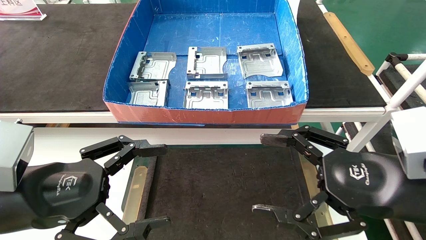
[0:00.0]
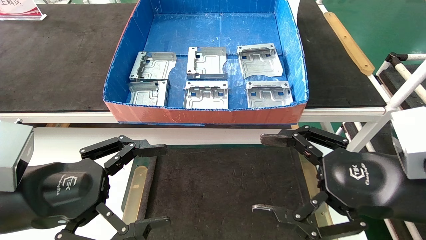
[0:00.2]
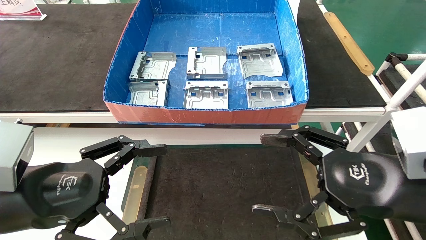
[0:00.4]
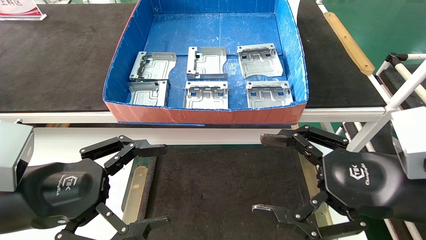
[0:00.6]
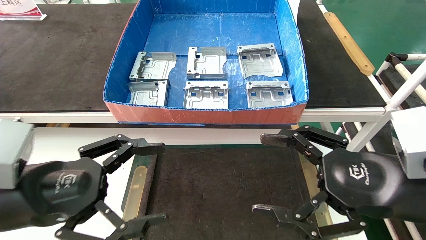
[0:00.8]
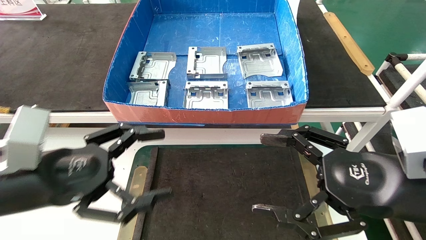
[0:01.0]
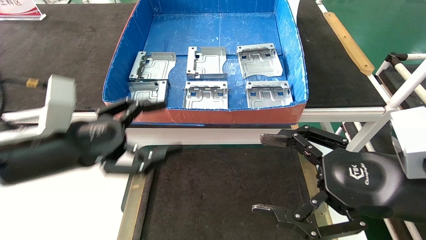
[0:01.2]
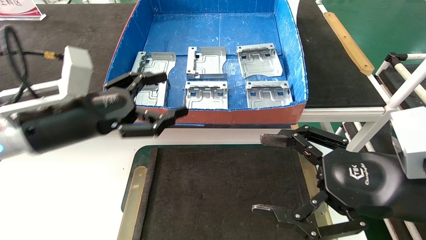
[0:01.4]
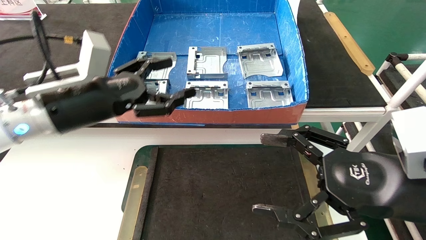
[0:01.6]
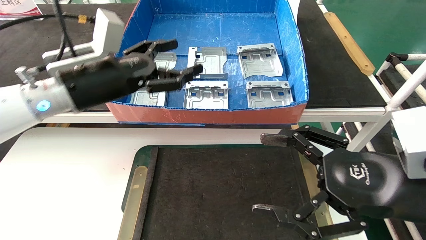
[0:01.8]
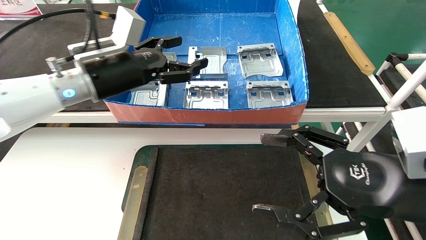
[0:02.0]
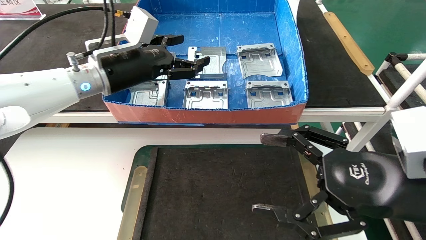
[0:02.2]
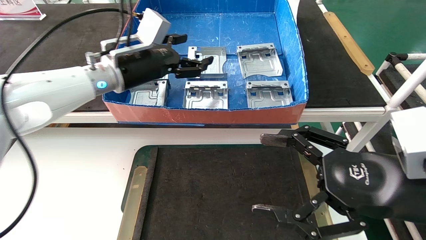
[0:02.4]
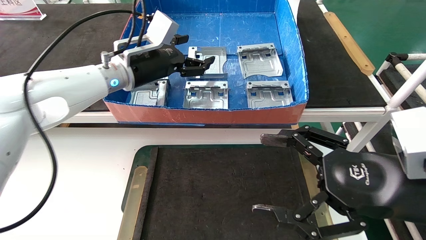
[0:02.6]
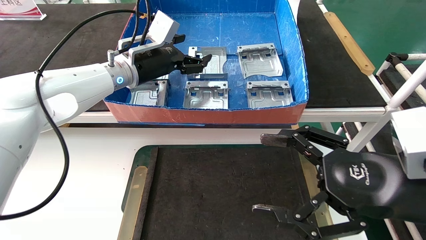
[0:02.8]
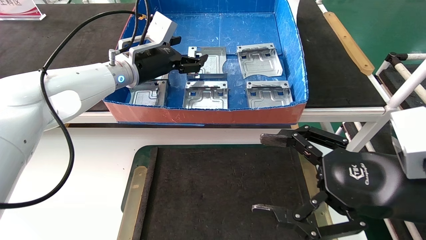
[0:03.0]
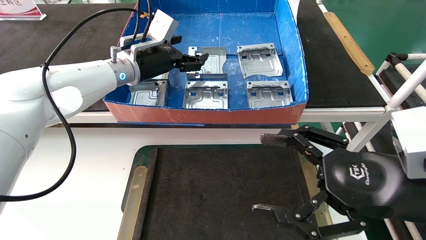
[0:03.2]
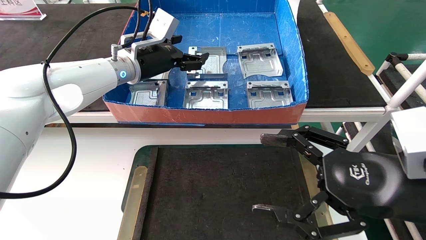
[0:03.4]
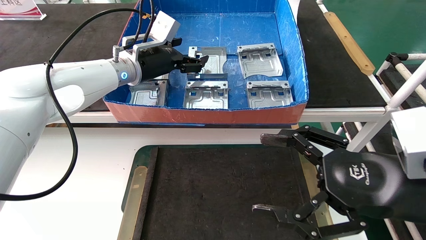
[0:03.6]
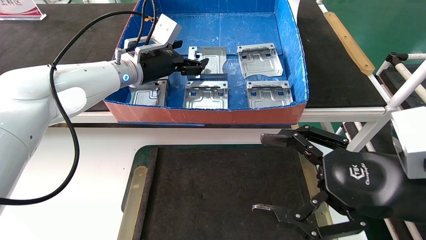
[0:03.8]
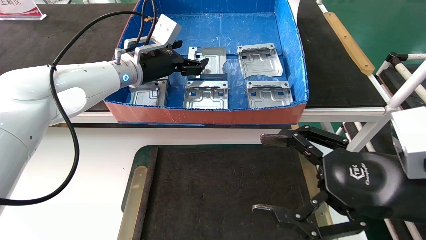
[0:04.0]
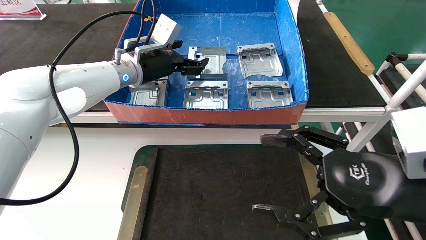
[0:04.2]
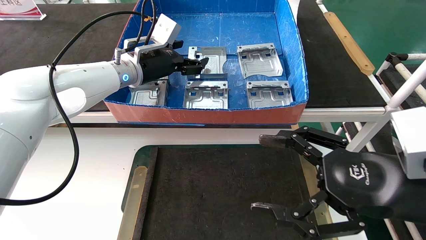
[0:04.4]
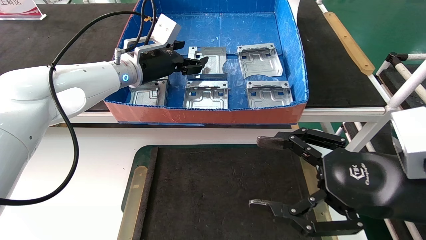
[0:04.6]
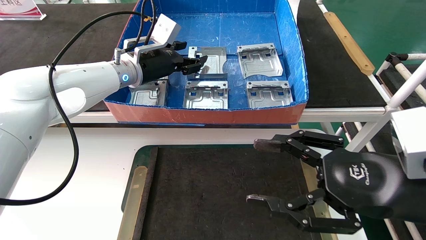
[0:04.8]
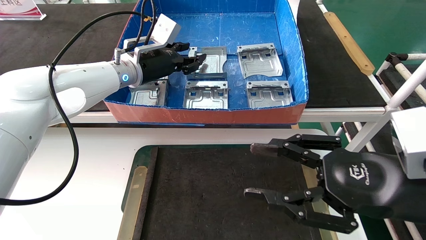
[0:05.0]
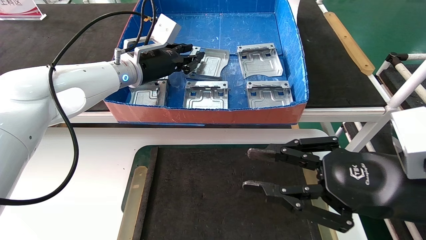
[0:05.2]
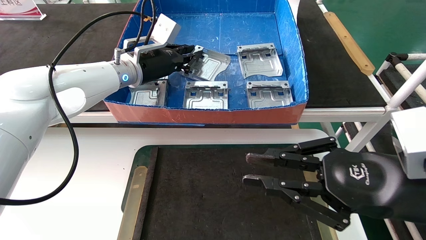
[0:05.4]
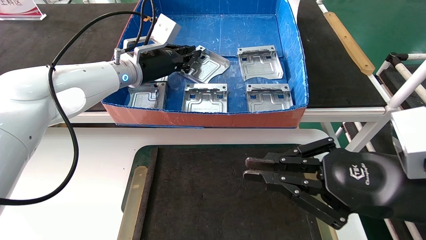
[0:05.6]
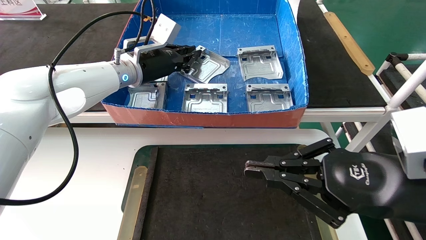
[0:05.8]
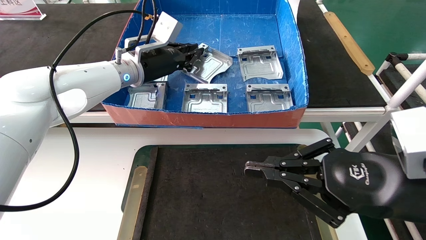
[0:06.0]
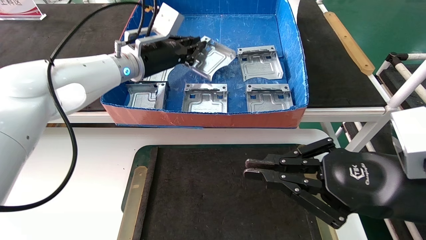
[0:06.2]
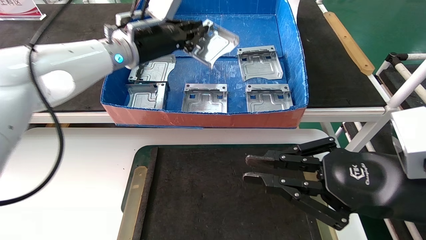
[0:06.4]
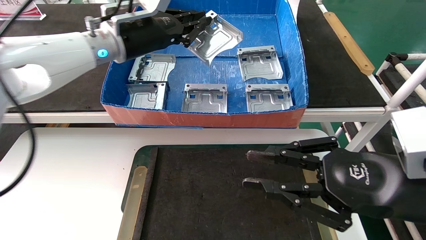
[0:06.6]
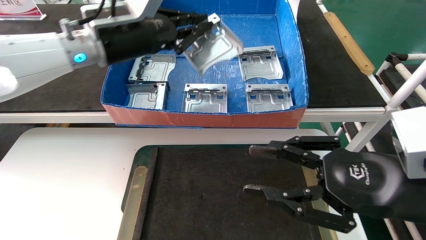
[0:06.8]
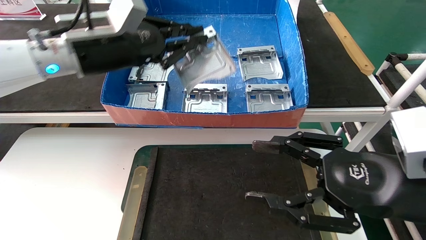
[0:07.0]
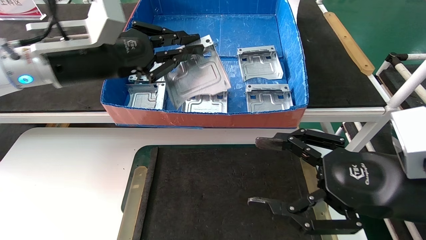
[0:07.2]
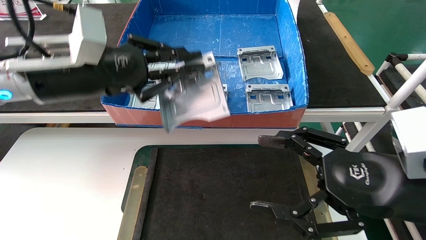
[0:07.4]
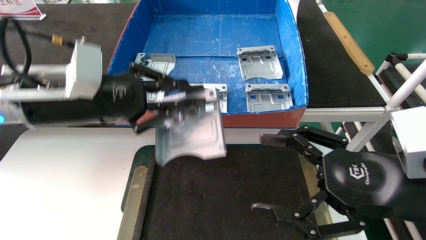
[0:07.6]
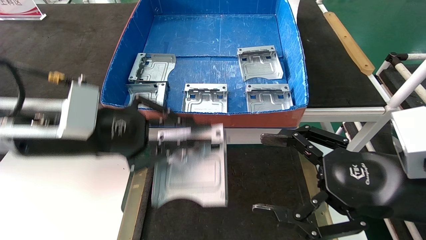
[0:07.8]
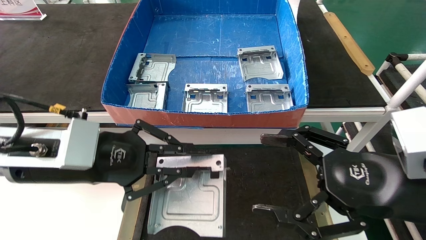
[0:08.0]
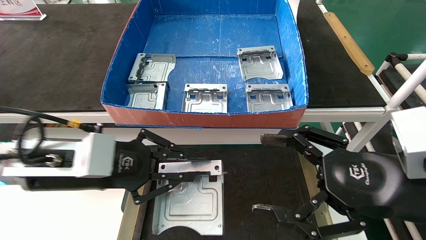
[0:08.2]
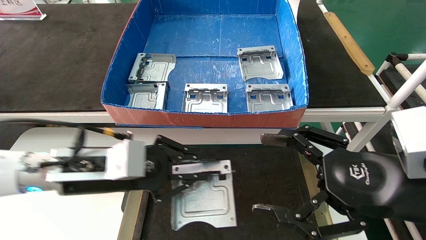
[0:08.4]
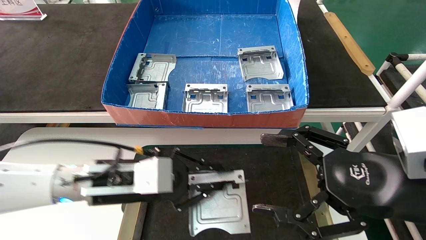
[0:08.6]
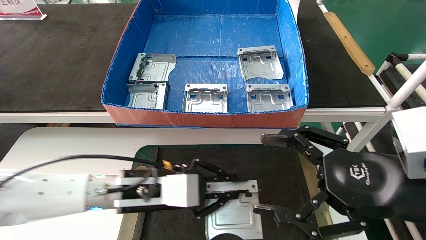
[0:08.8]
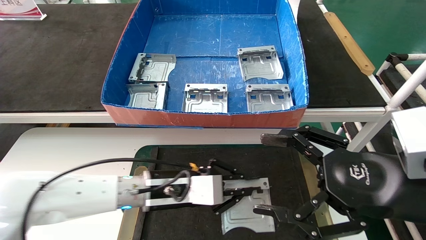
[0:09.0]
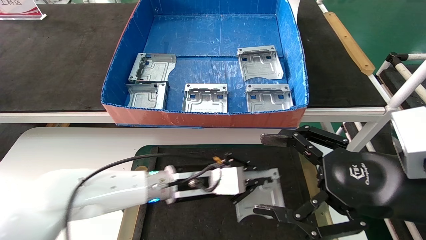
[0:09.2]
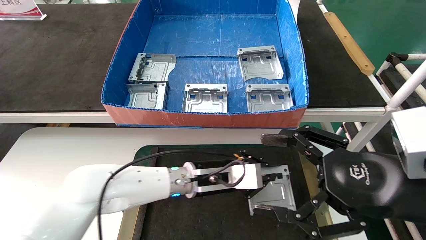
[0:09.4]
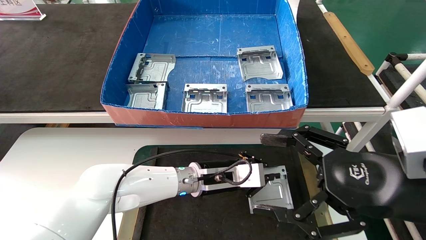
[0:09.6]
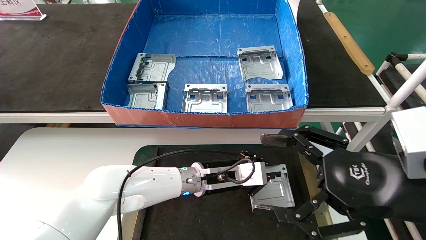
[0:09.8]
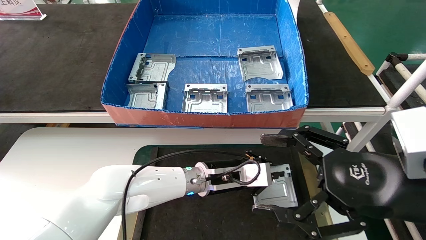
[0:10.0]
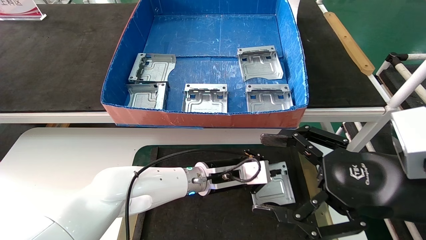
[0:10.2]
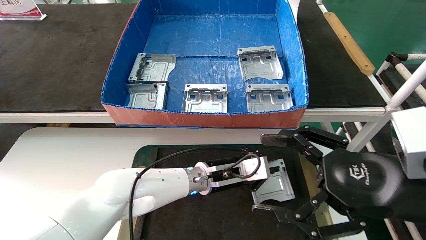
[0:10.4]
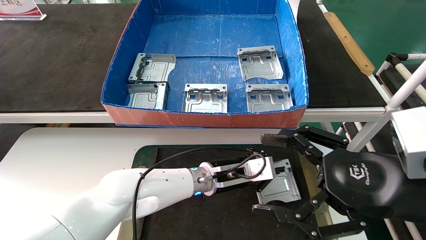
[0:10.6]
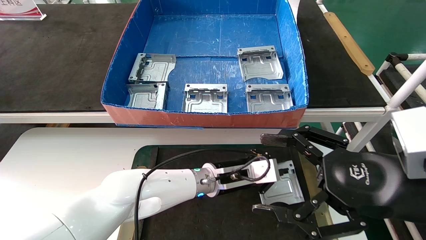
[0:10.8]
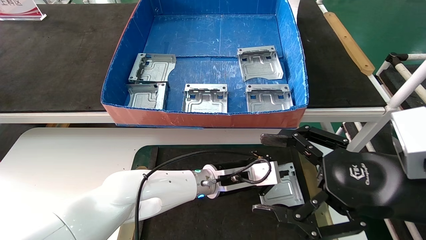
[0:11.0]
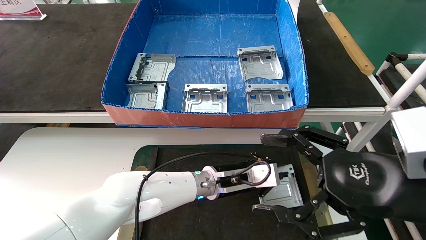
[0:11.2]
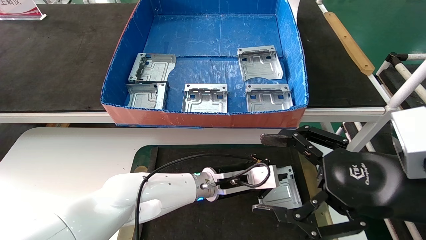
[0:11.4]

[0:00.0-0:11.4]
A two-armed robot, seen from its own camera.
Task of the whole recording: take the accessories out of the box and place them on the table.
Step, 0:00.8 to 0:05.4: Pick up the hard drive bracket from the feeding area.
0:00.0 to 0:01.4: The left gripper heads forward and upward, covering about 10 cm.
0:01.4 to 0:02.8: The left gripper travels forward, to the right and upward by roughly 20 cm.
0:02.8 to 0:04.2: The grippers make only small movements.
0:04.2 to 0:05.6: The left gripper closes up, while the right gripper closes.
0:05.6 to 0:07.2: The left gripper shifts approximately 15 cm backward and to the left. Meanwhile the right gripper opens its fingers.
0:07.2 to 0:08.6: The left gripper goes roughly 20 cm downward.
0:08.6 to 0:10.0: The left gripper heads to the right, forward and downward, covering about 20 cm.
0:10.0 to 0:11.4: There are only small adjustments of the grippers.

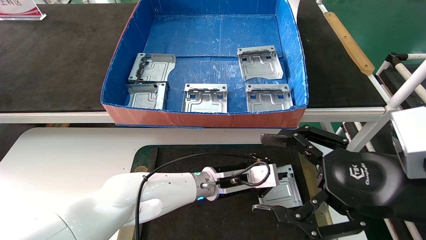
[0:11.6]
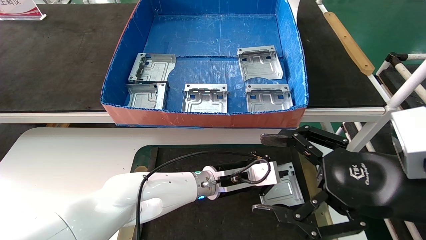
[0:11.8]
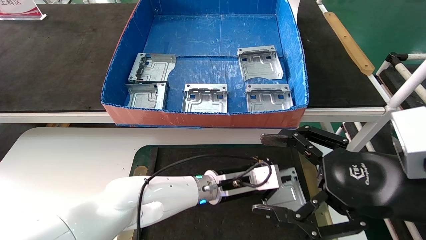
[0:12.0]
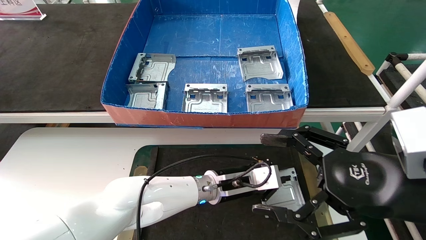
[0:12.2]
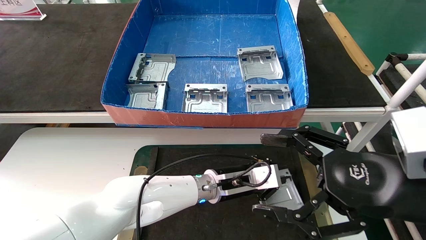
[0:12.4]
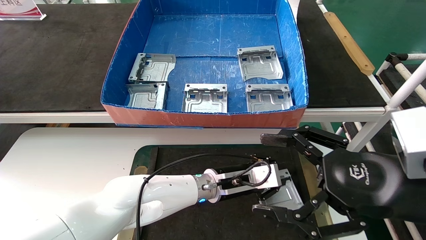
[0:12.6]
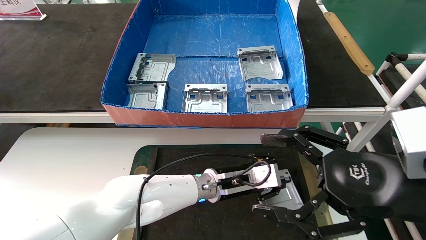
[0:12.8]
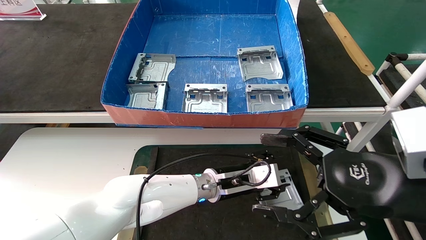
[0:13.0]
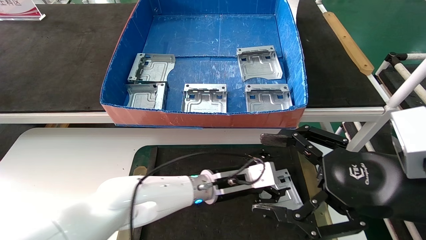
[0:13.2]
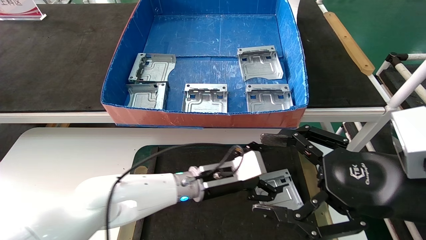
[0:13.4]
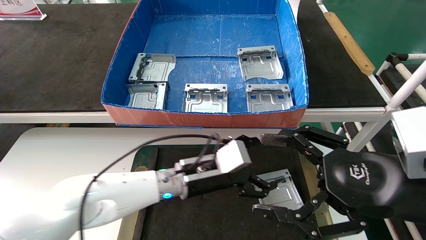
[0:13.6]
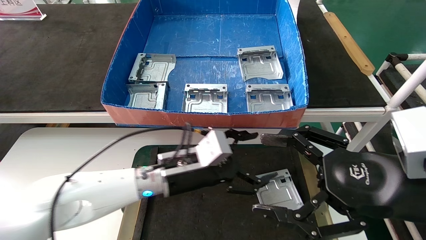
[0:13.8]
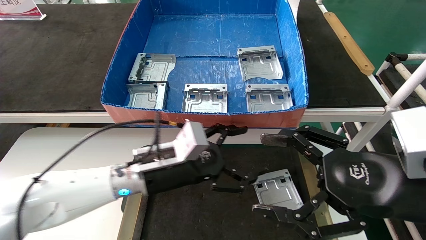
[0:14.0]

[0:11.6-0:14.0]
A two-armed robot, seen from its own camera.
Task of the whole recording: take the accessories out of the box and place them on the table.
0:11.6 to 0:12.8: Neither gripper changes place.
0:12.8 to 0:14.0: The left gripper travels to the left, upward and backward by some 15 cm, and opens its fingers.
